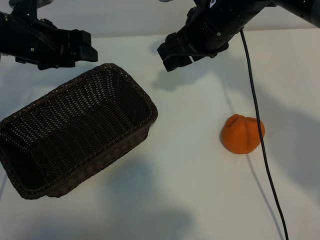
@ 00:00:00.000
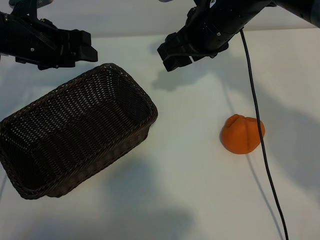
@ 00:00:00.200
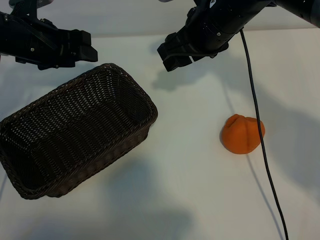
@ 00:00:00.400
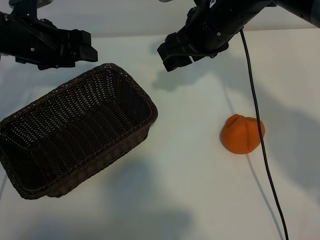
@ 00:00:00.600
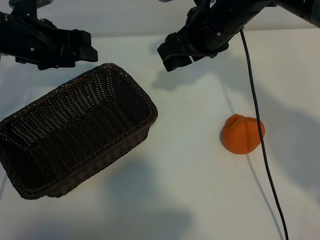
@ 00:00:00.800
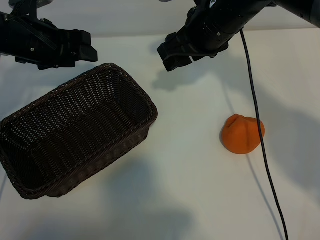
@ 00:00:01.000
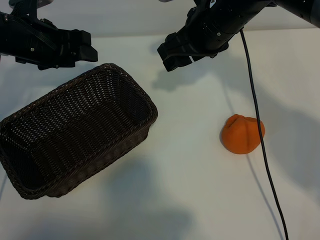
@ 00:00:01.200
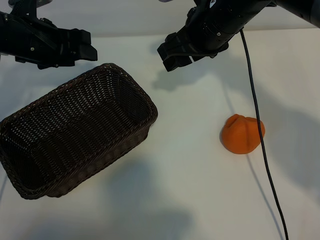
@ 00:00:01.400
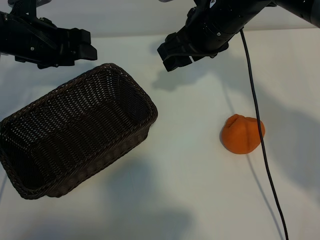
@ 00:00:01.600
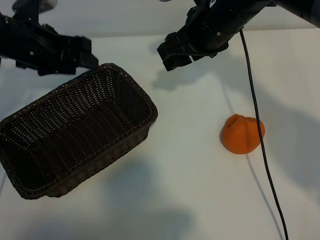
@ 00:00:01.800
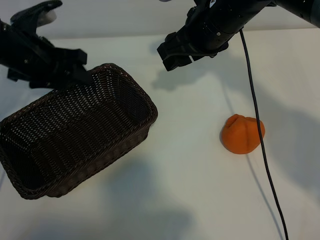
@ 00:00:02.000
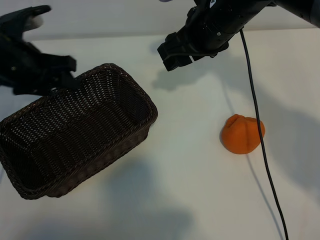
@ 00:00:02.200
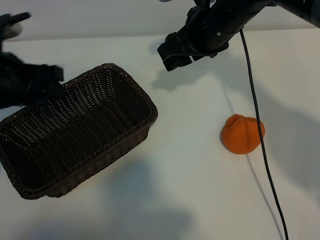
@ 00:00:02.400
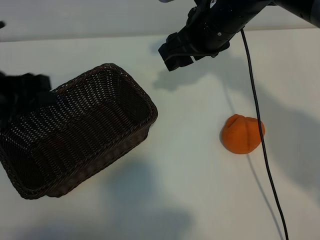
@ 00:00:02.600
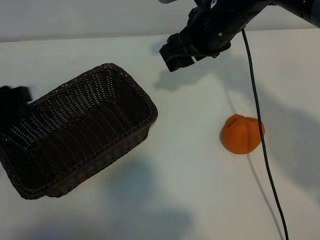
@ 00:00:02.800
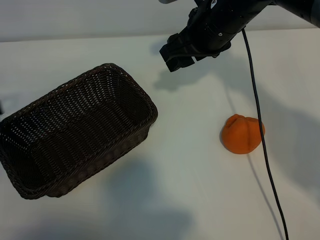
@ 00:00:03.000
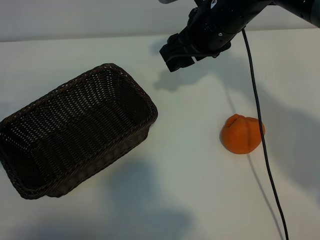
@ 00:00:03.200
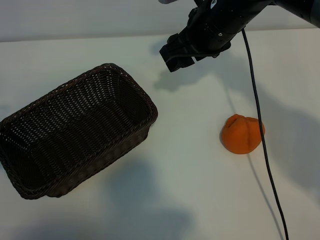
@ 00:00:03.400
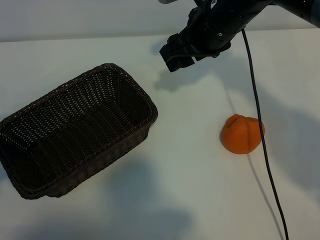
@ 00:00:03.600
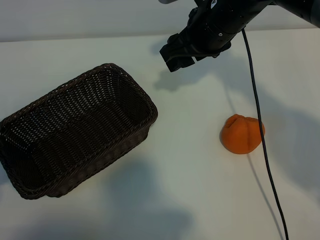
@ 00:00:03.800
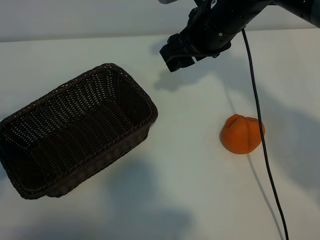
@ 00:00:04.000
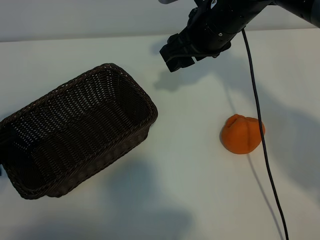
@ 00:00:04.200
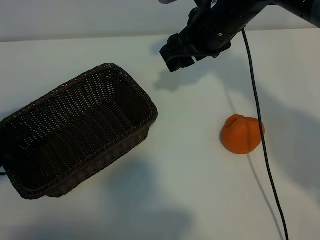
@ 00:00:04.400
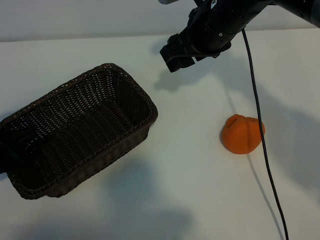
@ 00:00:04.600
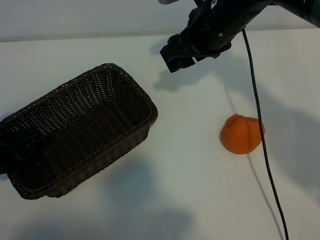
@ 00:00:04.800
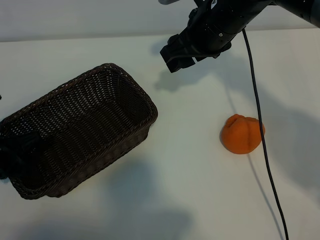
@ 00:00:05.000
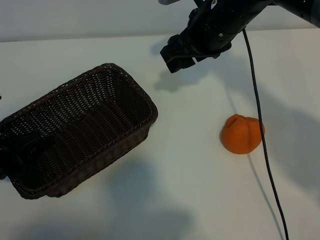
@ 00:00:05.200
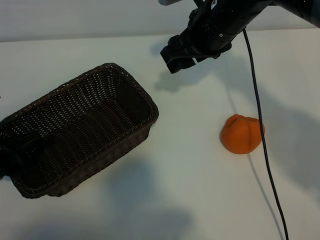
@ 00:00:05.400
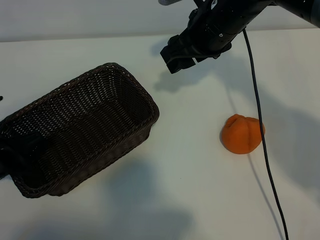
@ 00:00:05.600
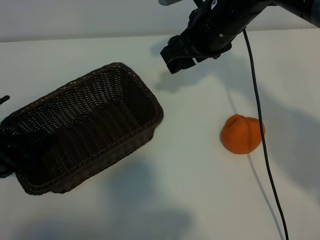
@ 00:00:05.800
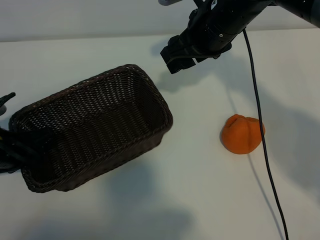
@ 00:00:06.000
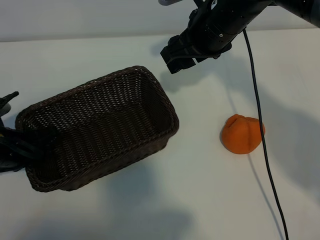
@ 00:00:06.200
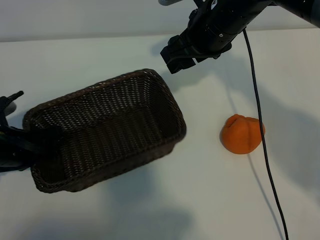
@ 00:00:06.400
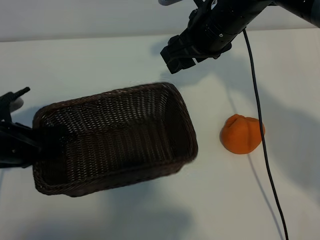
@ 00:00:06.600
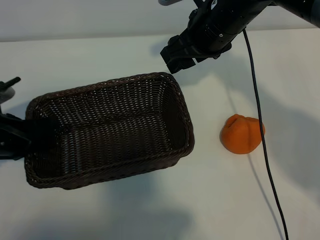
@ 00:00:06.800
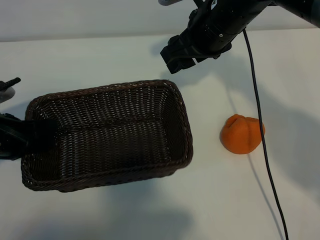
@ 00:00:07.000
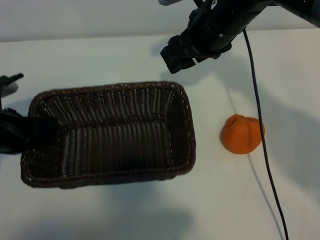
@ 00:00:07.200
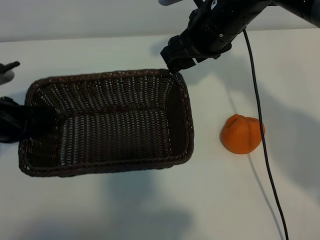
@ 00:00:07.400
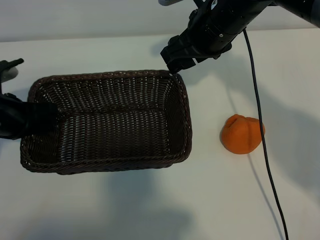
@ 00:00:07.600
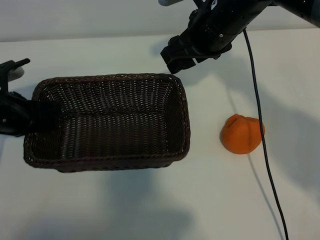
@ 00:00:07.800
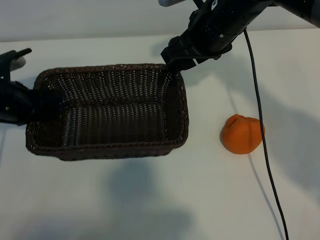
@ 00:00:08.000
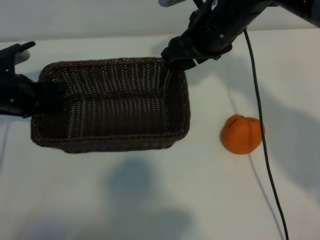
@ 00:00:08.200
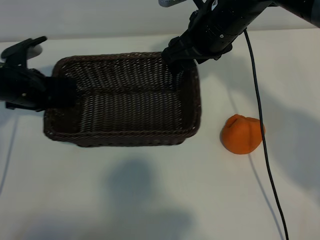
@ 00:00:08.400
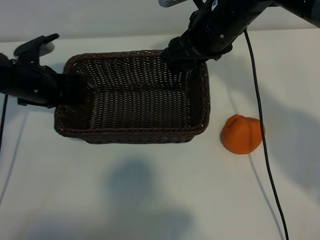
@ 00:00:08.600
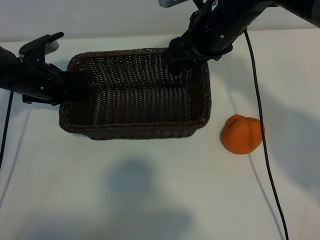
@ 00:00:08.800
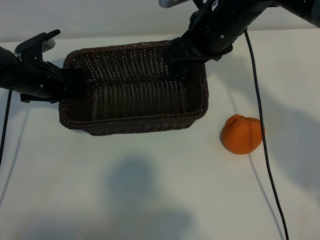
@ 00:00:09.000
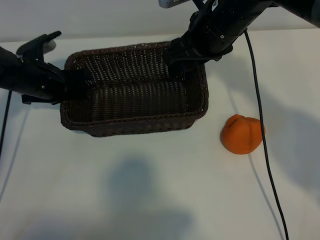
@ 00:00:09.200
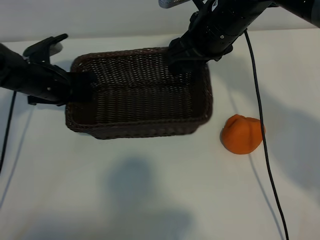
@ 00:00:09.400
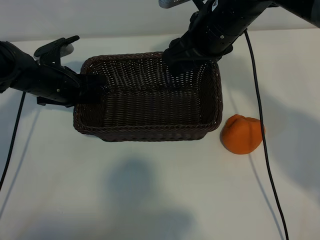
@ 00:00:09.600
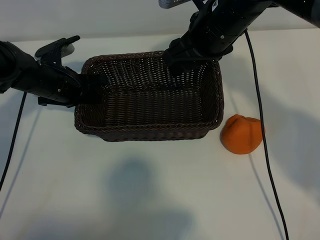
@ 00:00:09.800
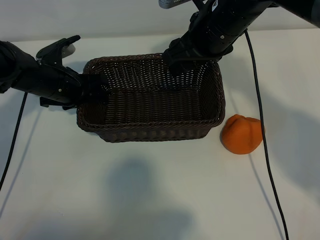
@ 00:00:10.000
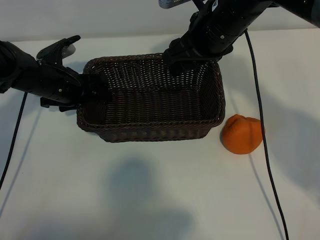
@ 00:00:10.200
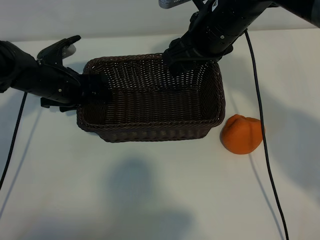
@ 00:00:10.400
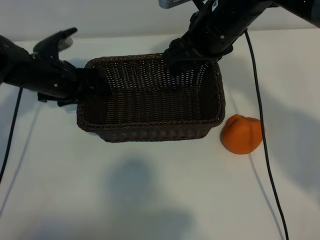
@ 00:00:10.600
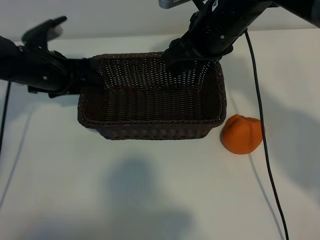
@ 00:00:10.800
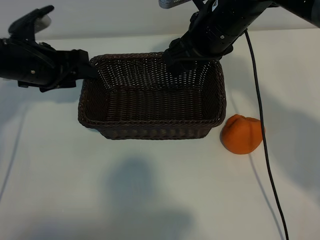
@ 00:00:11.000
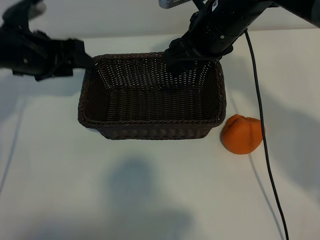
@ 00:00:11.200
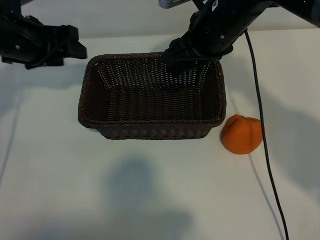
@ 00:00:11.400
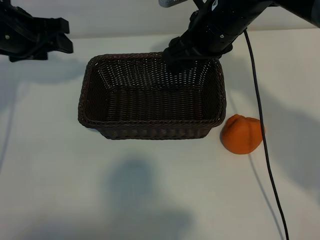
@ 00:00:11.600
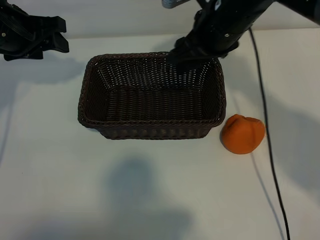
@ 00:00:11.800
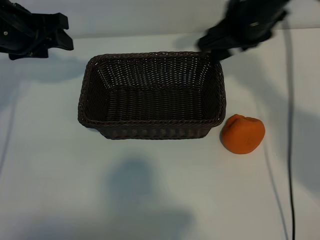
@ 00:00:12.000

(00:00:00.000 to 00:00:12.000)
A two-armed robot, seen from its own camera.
Task of the whole recording: pick up the orange and put it into the basket.
Step, 00:00:01.400 - 00:00:05.000: Grasp the basket with left gripper.
Step, 00:00:05.400 - 00:00:09.800: Place the basket in the center of view with left gripper.

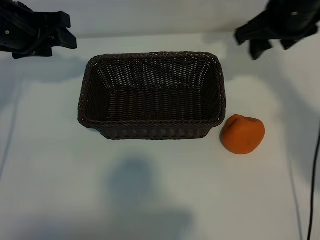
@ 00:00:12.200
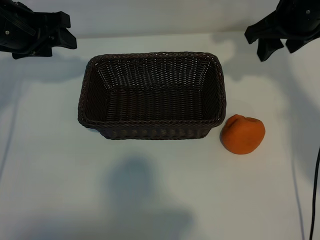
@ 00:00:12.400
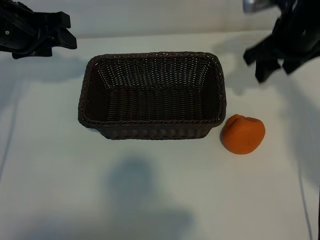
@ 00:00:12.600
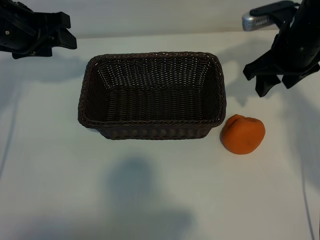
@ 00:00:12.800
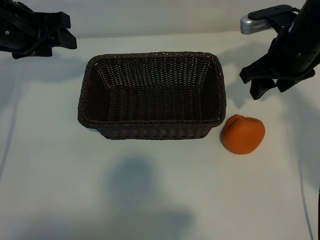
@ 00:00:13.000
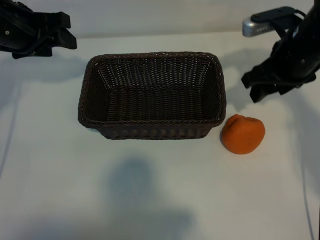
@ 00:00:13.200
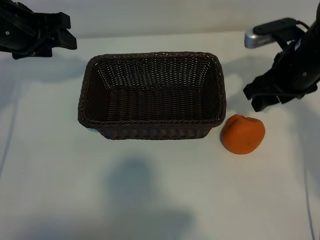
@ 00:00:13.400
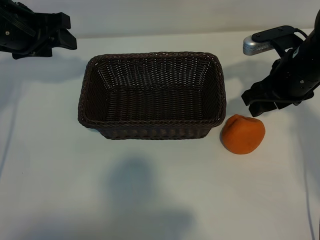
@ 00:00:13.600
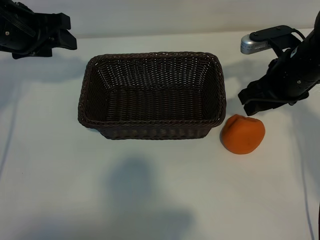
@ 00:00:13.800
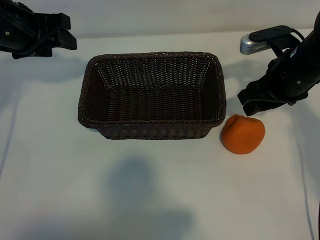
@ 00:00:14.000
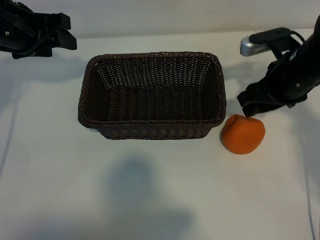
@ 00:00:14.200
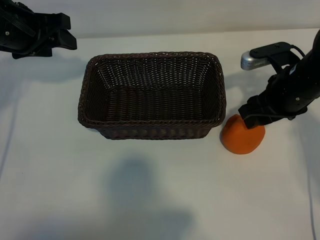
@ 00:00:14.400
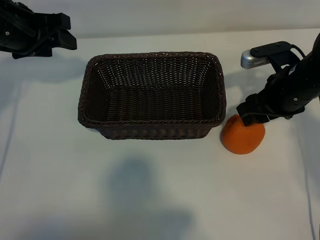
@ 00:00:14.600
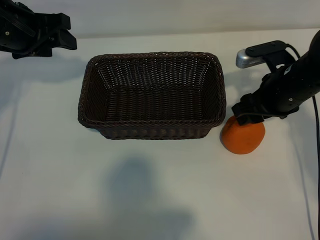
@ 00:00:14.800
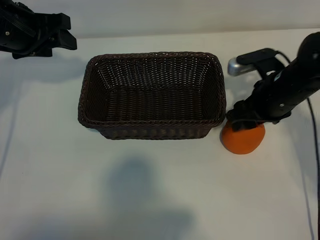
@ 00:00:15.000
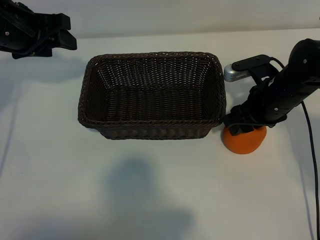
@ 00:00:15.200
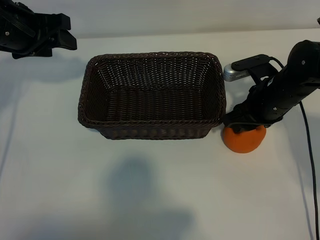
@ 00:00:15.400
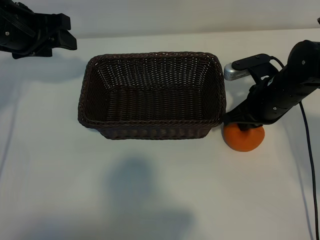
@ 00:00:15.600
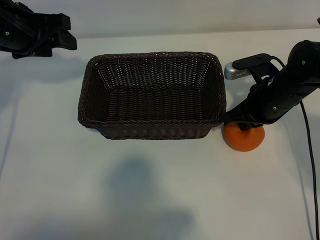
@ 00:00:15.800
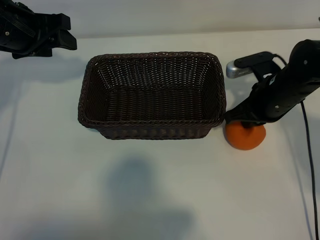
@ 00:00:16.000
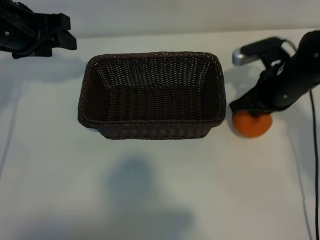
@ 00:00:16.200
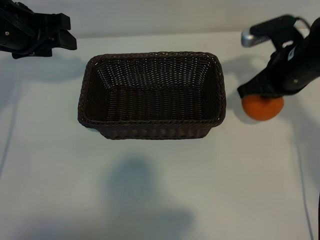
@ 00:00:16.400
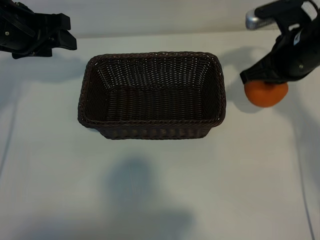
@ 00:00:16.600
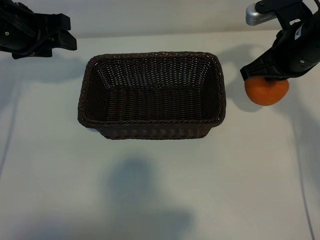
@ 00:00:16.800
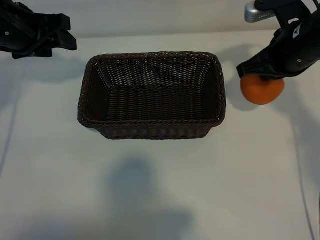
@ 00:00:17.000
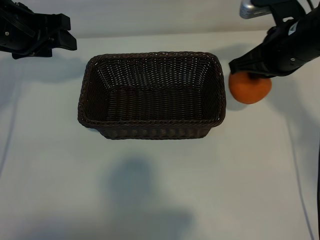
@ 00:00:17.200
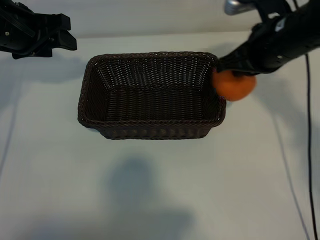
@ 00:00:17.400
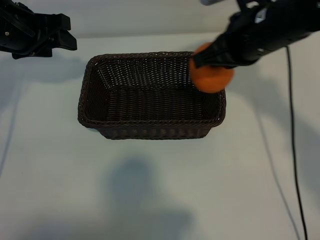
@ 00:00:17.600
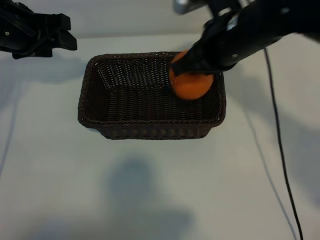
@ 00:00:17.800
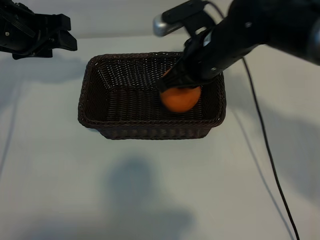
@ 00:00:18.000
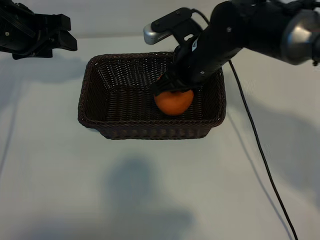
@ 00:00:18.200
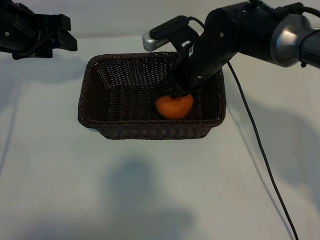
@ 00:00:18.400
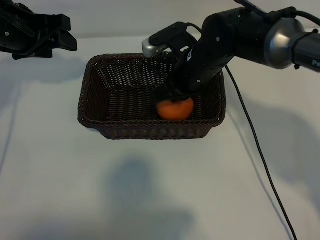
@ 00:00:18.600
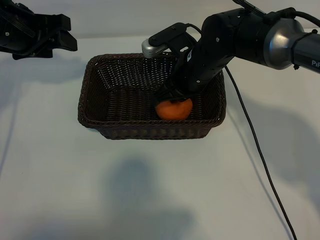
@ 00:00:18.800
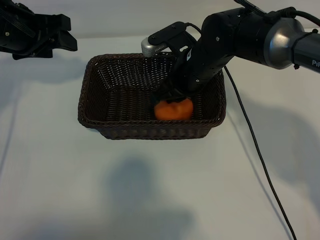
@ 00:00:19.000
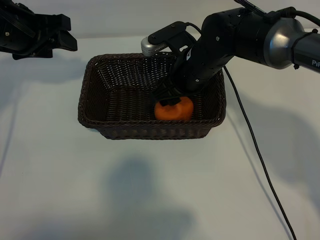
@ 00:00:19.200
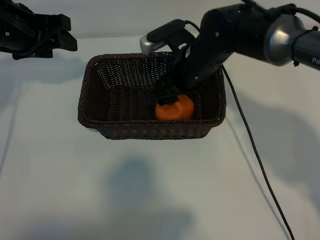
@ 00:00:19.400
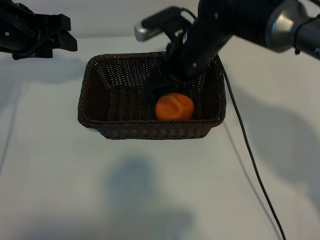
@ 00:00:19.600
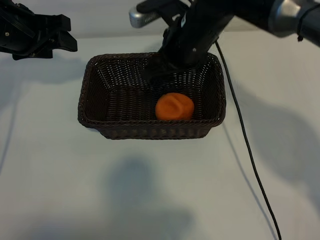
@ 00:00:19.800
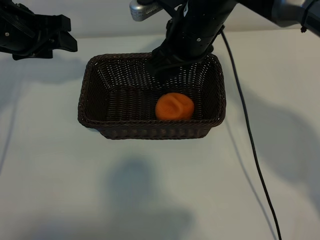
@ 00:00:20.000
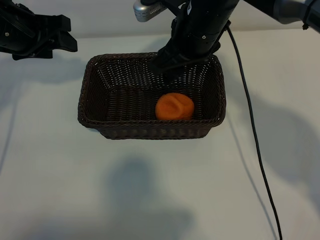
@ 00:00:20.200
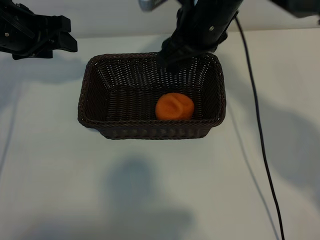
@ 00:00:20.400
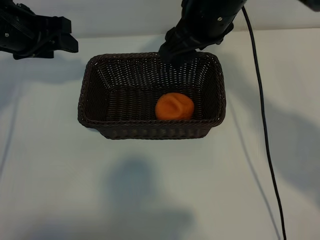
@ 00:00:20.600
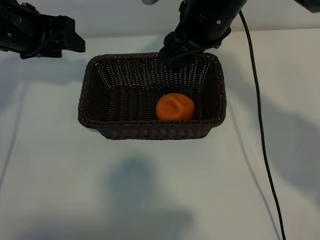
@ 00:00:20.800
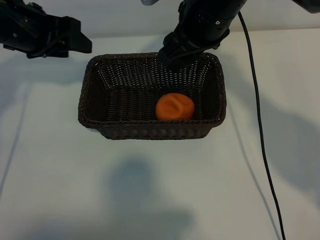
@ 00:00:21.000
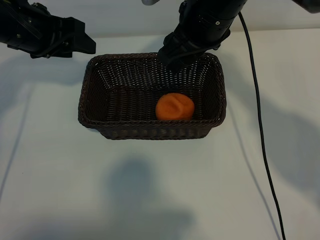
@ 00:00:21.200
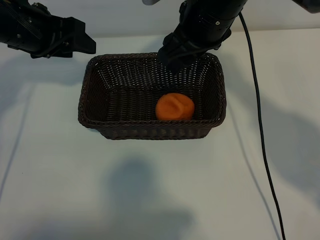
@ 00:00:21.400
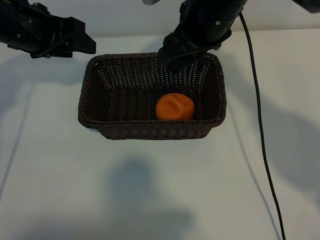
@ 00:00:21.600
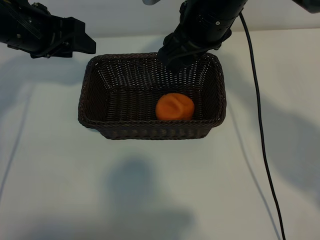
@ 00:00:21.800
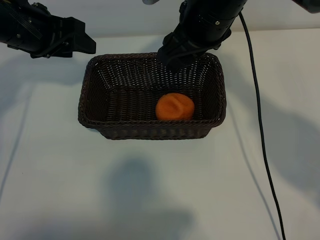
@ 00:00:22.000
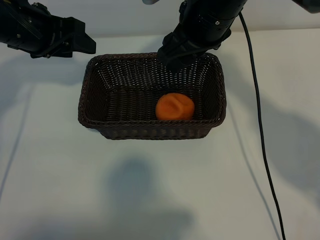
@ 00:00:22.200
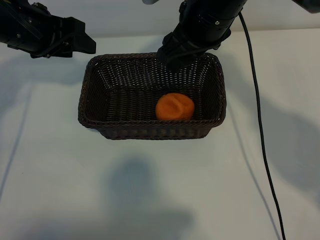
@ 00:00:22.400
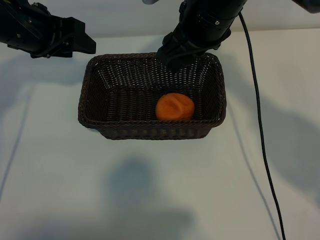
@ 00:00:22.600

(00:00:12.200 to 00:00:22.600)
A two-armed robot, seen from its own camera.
Task of the whole recording: pick up the orange and put it into the basket.
Step, 00:00:12.200 - 00:00:15.600: Grasp the orange with right gripper.
Step, 00:00:15.800 - 00:00:19.000: Place the orange in the basket with right gripper.
